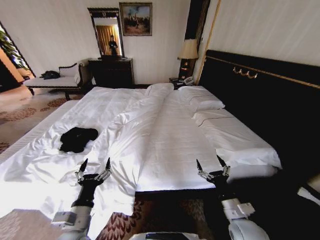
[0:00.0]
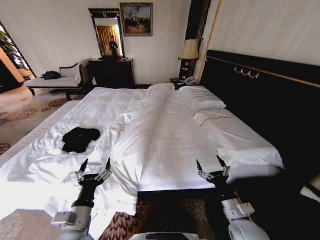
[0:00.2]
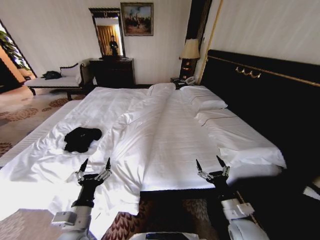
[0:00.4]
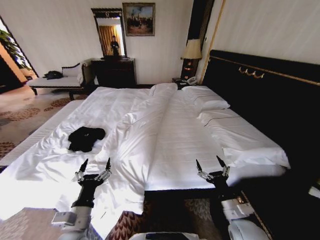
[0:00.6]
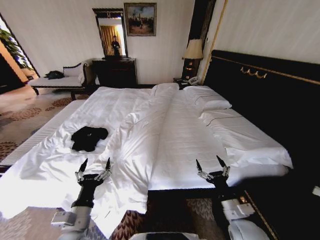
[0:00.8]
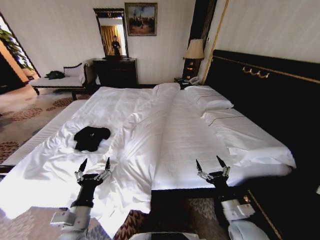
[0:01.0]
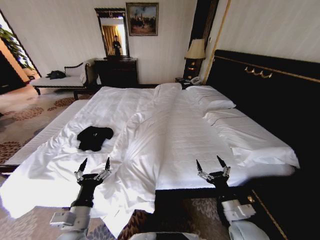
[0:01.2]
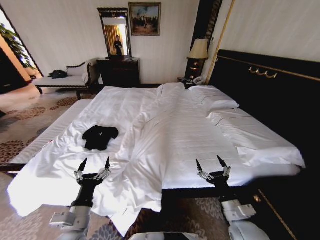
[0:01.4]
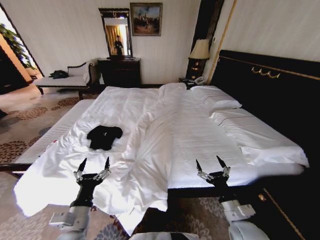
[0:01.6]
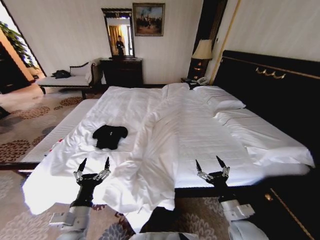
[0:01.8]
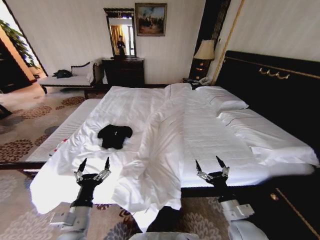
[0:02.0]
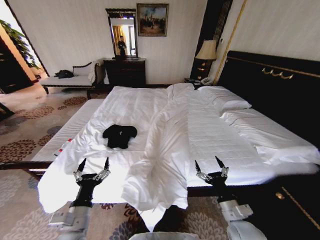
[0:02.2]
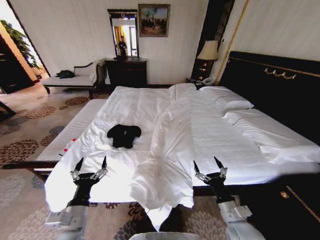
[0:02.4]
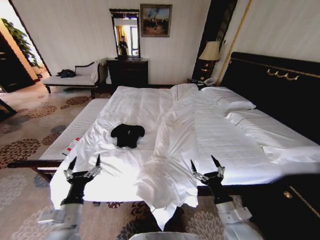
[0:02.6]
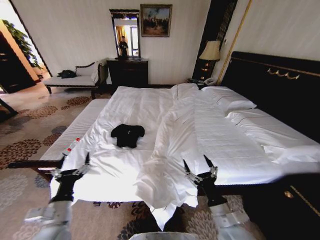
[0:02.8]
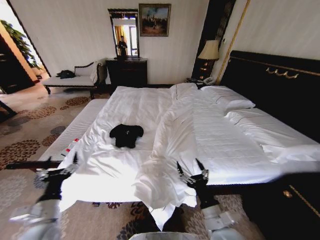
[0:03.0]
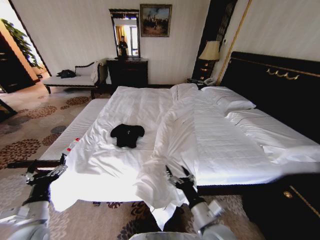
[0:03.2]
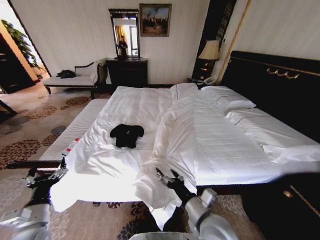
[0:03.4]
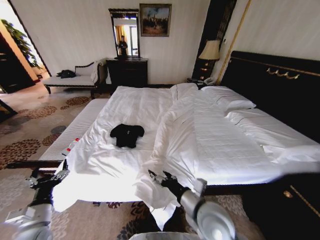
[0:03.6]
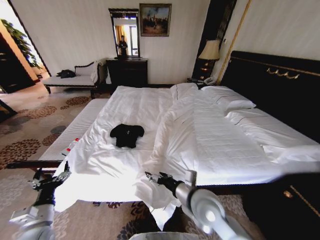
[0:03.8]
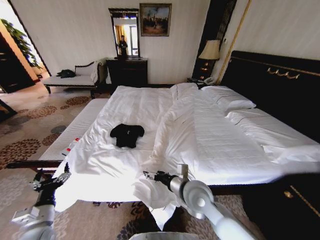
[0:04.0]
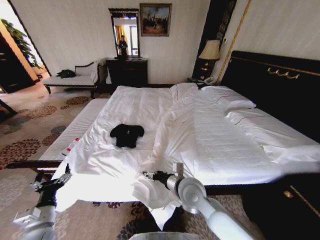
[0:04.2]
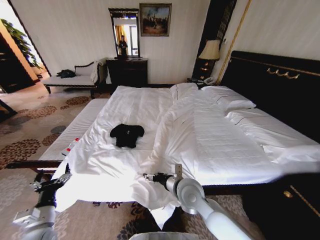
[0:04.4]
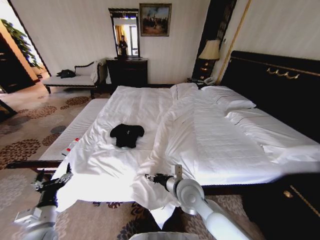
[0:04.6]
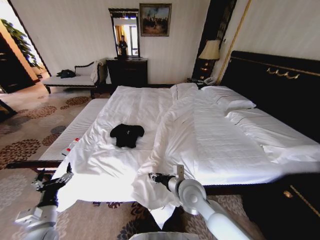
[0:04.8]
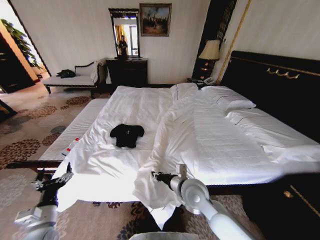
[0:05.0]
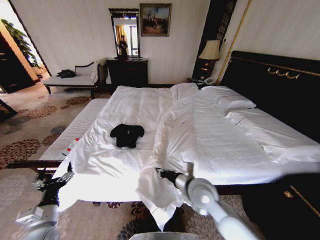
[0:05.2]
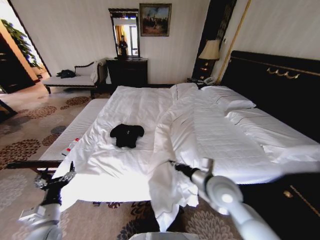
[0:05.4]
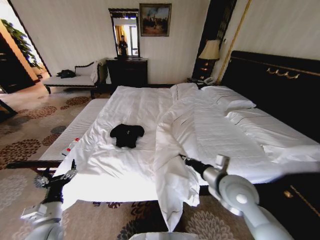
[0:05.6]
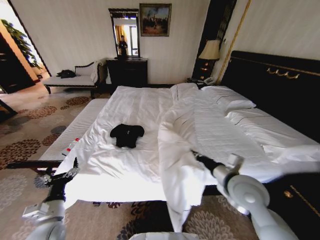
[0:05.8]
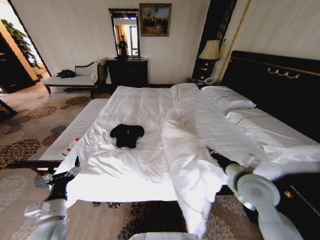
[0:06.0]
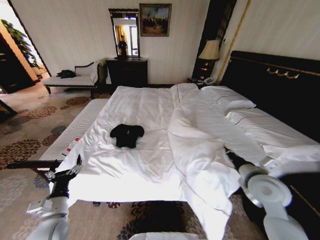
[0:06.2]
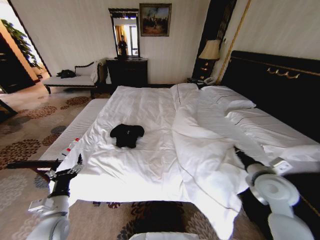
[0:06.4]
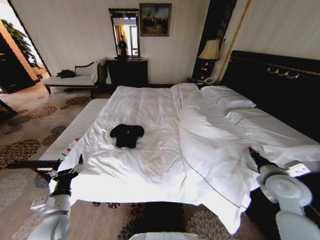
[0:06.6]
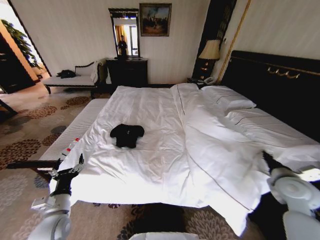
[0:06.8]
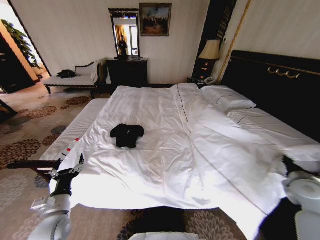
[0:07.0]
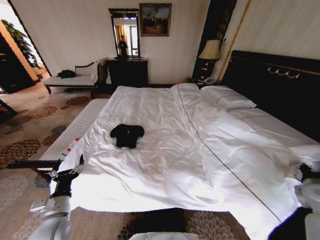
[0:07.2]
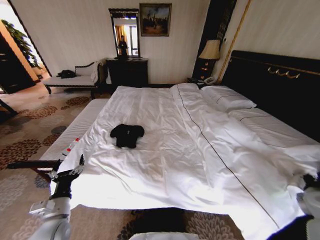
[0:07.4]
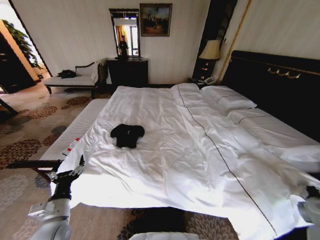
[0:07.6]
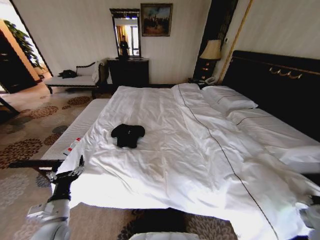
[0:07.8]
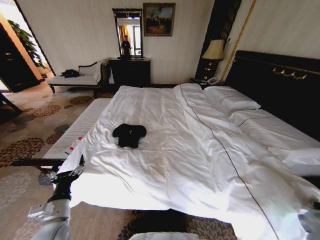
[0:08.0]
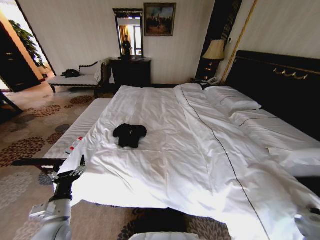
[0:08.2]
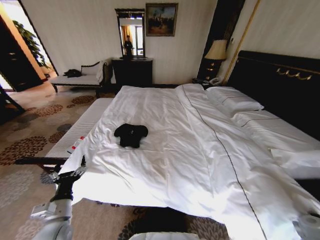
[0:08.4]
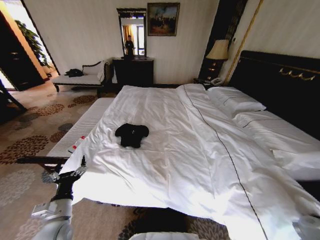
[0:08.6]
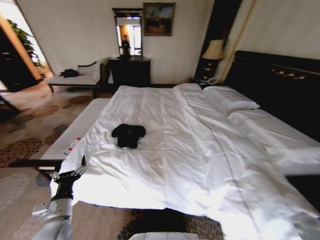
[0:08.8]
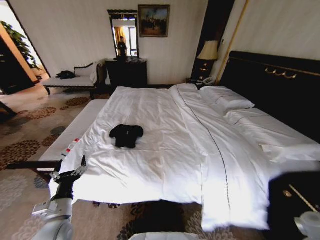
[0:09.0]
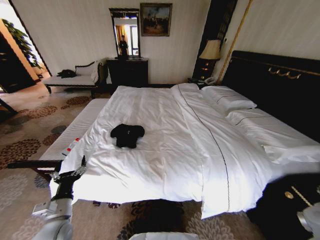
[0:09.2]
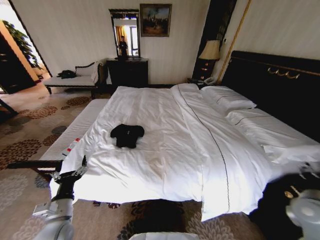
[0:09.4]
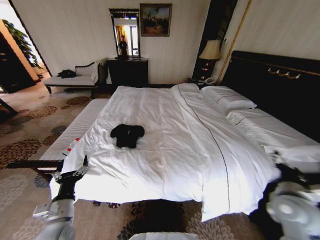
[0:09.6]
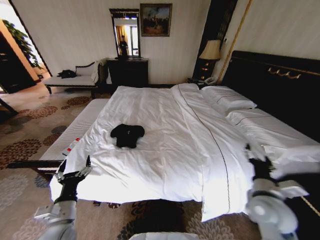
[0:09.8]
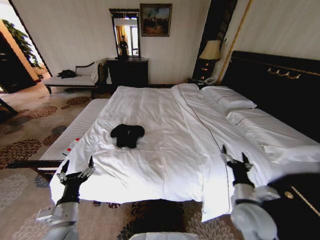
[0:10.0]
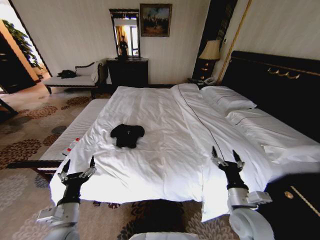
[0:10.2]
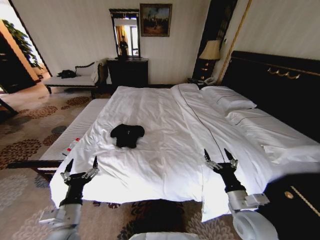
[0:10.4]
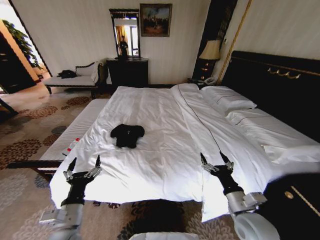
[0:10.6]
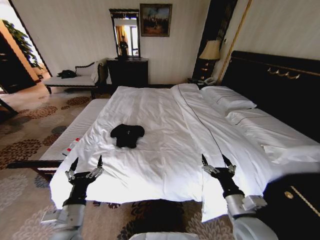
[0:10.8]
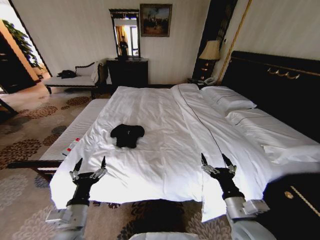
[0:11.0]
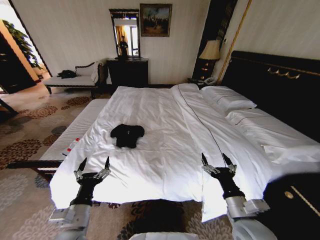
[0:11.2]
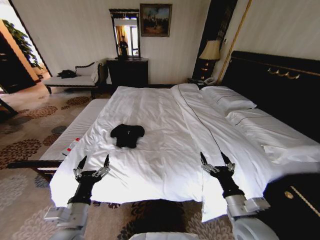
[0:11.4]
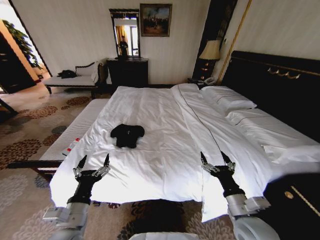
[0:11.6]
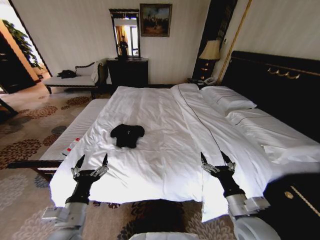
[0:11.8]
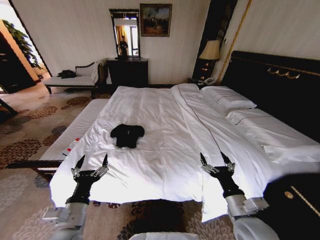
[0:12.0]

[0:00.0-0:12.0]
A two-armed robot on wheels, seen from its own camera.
Task of the whole recording: Fold the clothes on the bed.
0:01.6 to 0:03.0: Both grippers move to the left, roughly 10 cm.
0:03.0 to 0:04.4: The left gripper ends up about 5 cm from where it was; the right gripper shifts approximately 15 cm forward and to the left.
0:04.4 to 0:06.0: The right gripper is displaced to the right by some 20 cm, and closes its fingers.
0:06.0 to 0:07.6: The right gripper is displaced to the right by approximately 30 cm.
0:07.6 to 0:09.0: The right gripper reaches approximately 10 cm downward, then returns.
0:09.0 to 0:10.4: The left gripper shifts by about 5 cm. The right gripper is displaced to the left by about 25 cm, and opens its fingers.
0:10.4 to 0:12.0: The grippers move only a little.

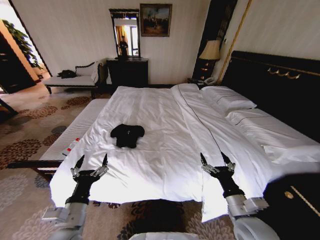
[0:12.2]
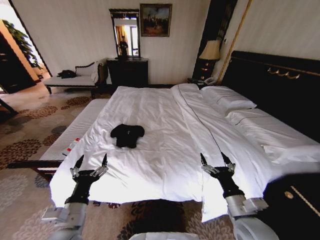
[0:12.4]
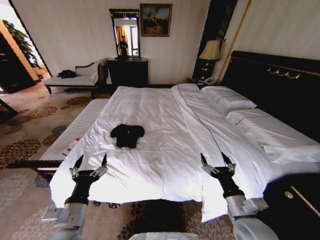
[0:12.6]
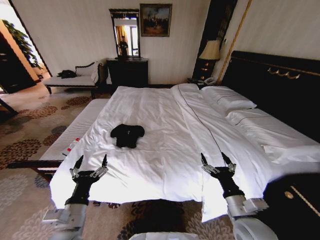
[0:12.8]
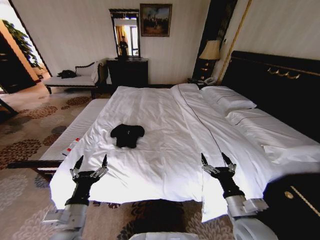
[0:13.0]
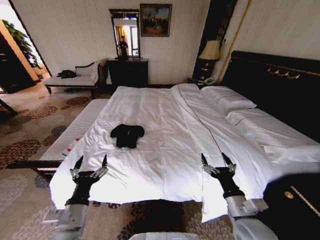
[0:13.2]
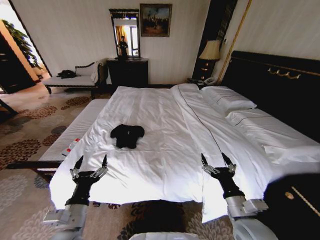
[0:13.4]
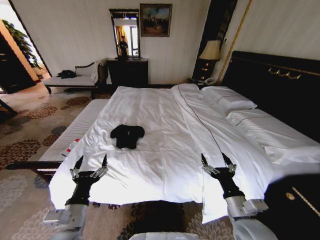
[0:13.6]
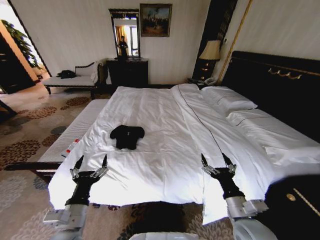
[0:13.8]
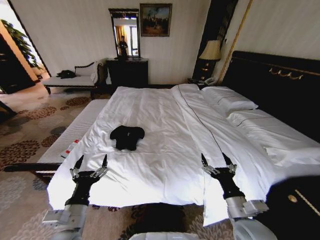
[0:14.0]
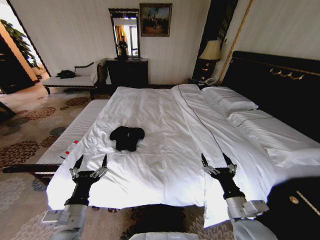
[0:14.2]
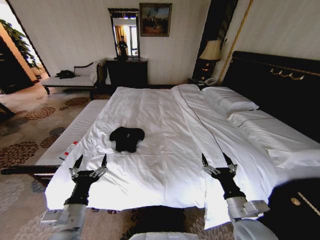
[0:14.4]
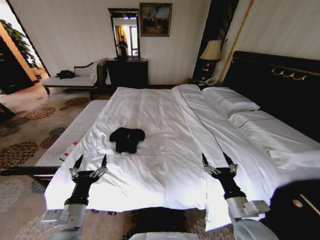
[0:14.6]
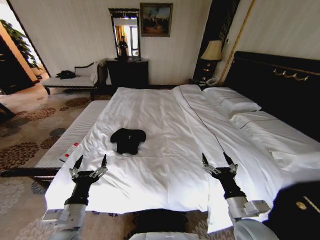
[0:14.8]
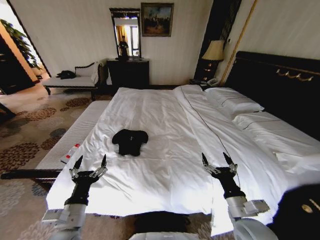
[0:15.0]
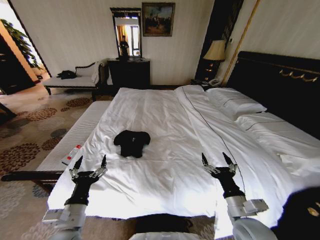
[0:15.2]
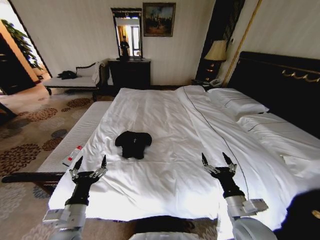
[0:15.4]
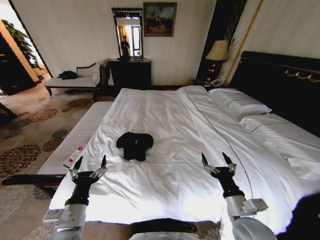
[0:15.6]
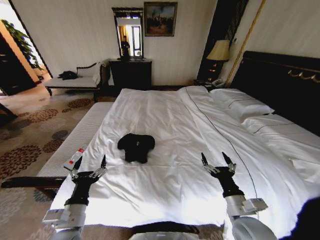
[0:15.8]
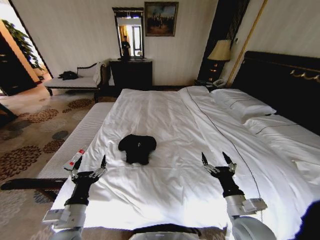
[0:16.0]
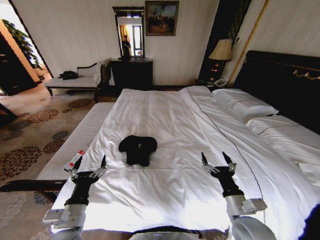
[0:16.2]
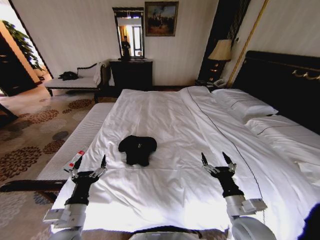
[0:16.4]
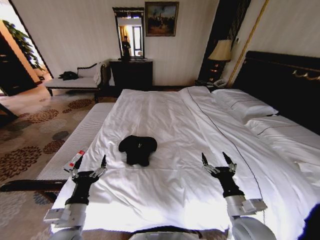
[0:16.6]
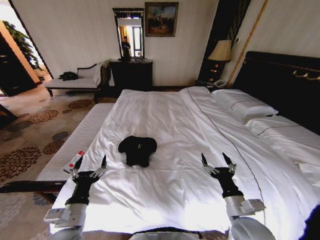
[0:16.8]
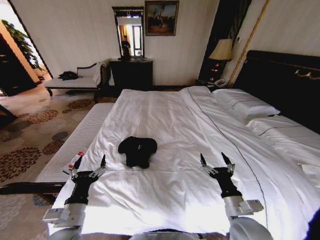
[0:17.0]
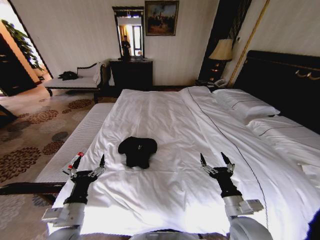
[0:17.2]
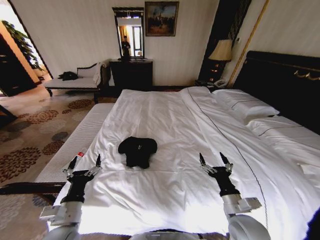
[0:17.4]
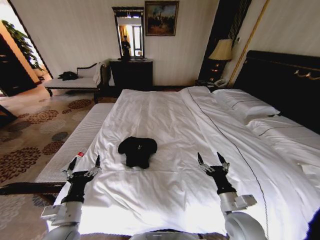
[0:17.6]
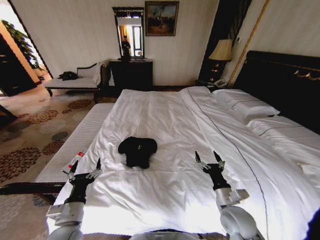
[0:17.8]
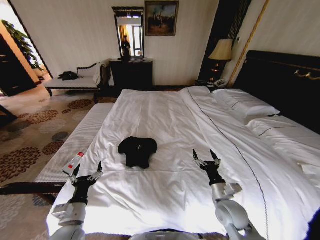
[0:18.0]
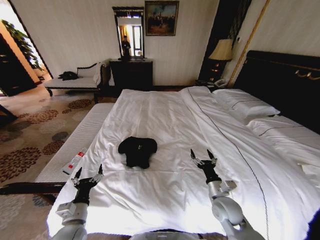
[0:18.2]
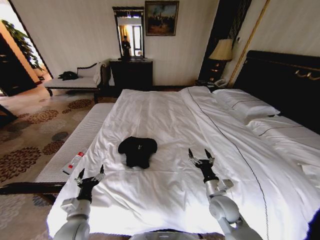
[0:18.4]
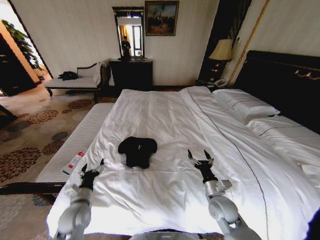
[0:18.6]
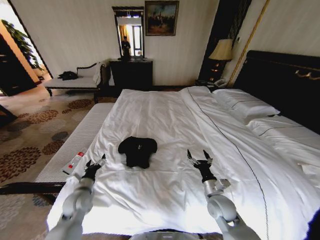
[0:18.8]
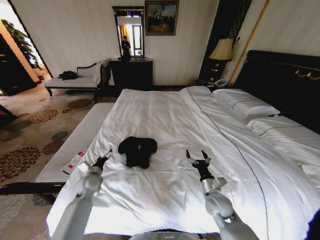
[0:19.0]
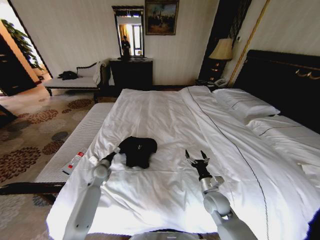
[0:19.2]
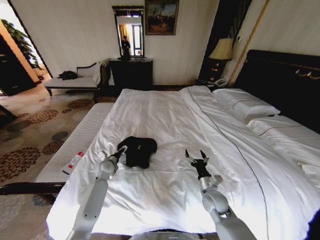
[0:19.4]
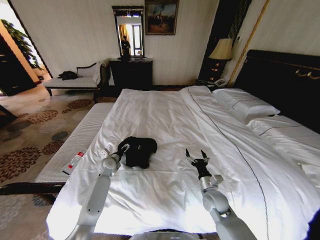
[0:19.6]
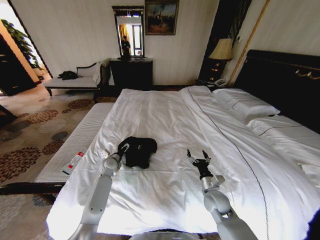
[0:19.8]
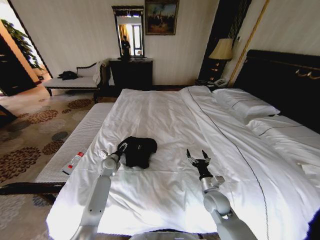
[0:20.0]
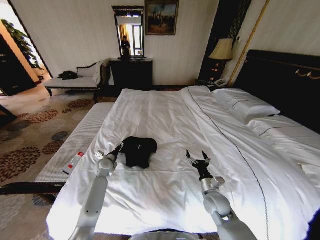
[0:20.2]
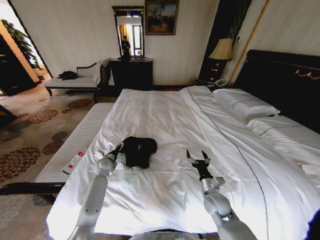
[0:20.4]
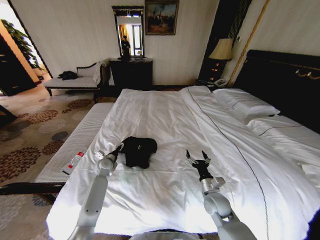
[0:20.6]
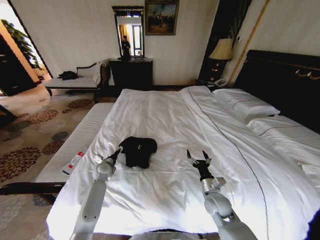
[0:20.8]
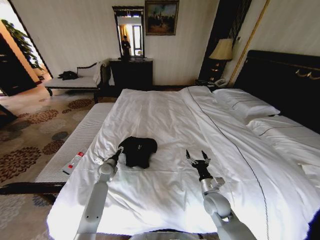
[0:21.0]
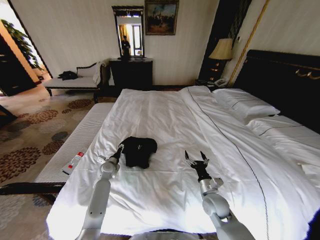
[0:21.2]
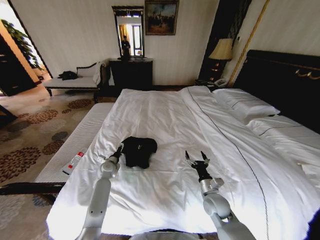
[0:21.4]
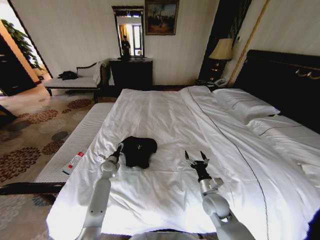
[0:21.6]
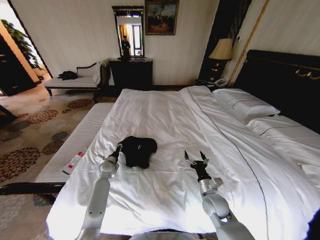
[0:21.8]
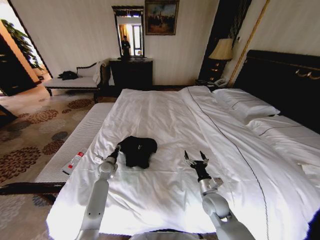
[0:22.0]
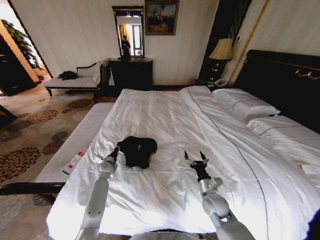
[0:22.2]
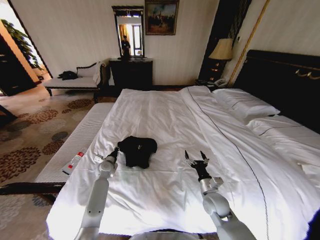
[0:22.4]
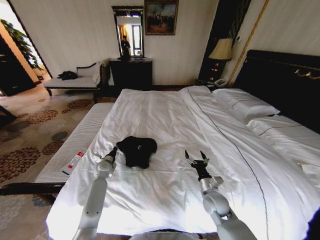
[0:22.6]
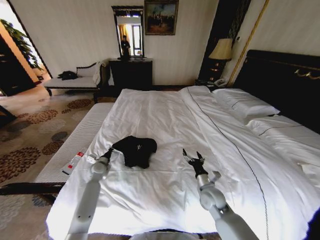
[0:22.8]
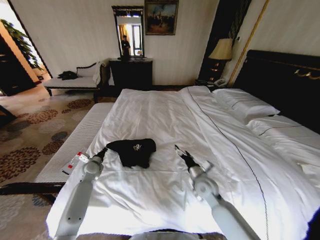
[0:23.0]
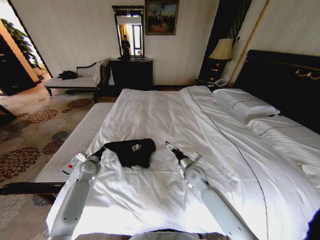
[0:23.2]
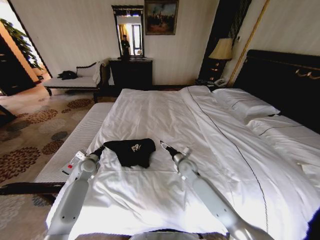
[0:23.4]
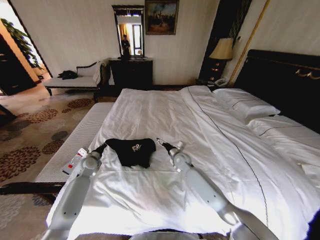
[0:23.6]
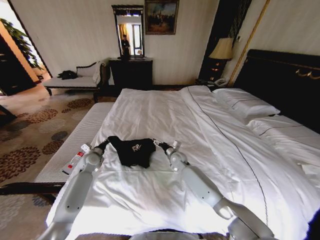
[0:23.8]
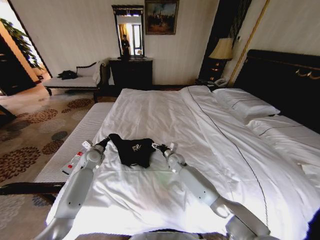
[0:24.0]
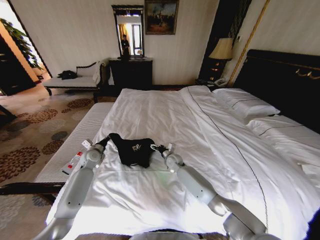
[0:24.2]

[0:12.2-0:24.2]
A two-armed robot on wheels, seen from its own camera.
Task of the whole recording: Fold the clothes on the bed.
0:12.2 to 0:13.8: The two grippers keep their place.
0:16.6 to 0:18.2: The right gripper moves forward and downward, roughly 10 cm; the left gripper travels downward by some 5 cm.
0:18.2 to 0:19.8: The right gripper moves roughly 5 cm, while the left gripper heads forward, covering roughly 30 cm.
0:19.8 to 0:21.2: The grippers stay close to where they were, moving slightly.
0:21.2 to 0:22.6: The left gripper closes.
0:22.6 to 0:24.2: The left gripper moves upward and to the left, about 10 cm, while the right gripper moves forward and to the left, roughly 25 cm.
